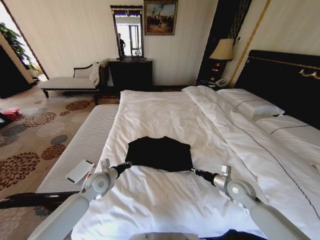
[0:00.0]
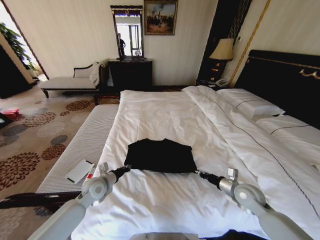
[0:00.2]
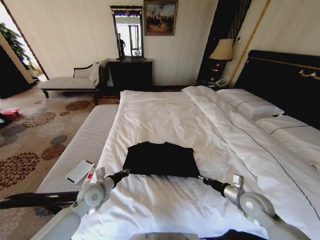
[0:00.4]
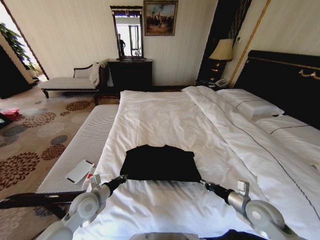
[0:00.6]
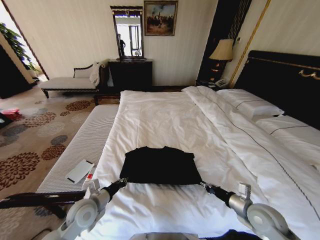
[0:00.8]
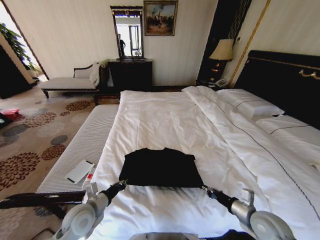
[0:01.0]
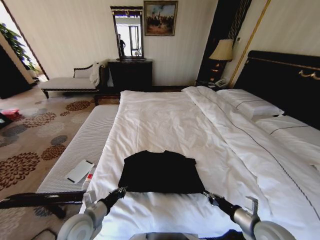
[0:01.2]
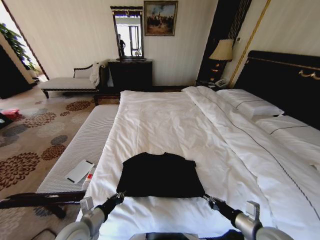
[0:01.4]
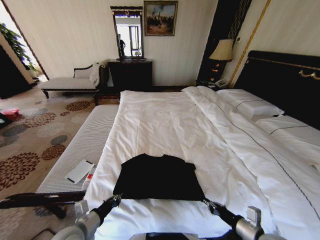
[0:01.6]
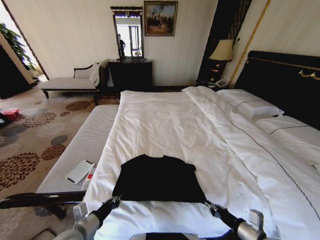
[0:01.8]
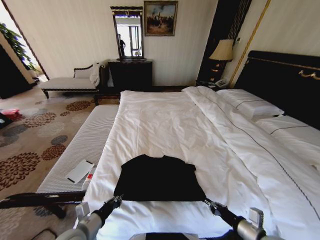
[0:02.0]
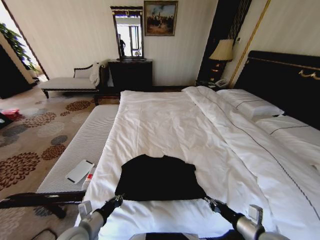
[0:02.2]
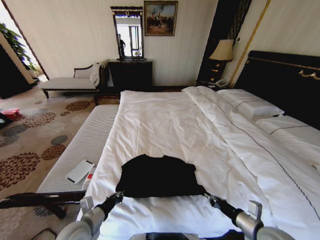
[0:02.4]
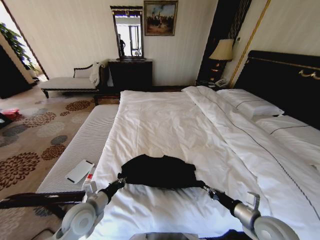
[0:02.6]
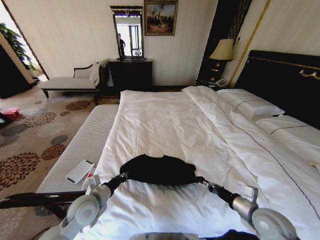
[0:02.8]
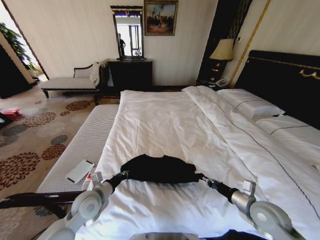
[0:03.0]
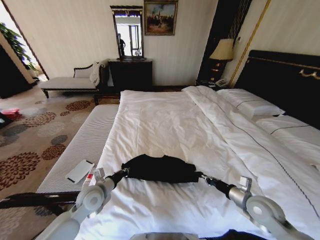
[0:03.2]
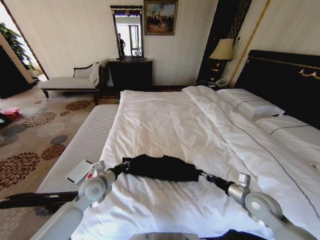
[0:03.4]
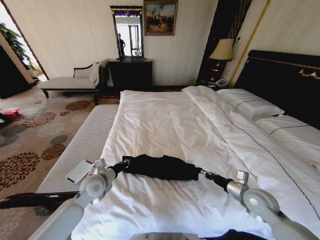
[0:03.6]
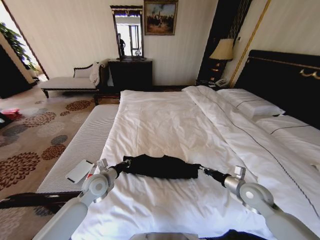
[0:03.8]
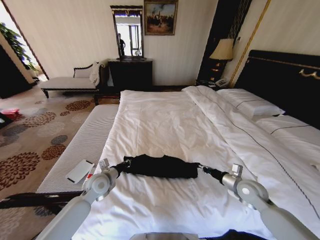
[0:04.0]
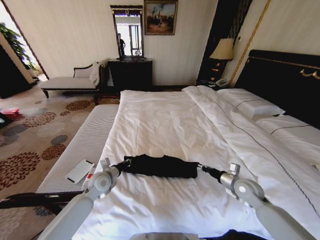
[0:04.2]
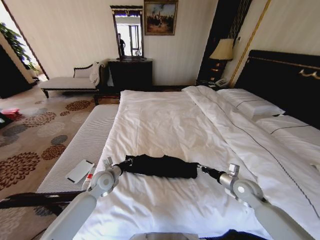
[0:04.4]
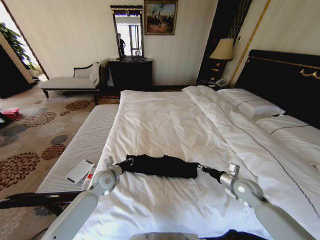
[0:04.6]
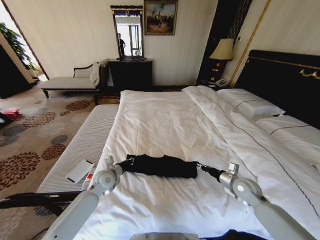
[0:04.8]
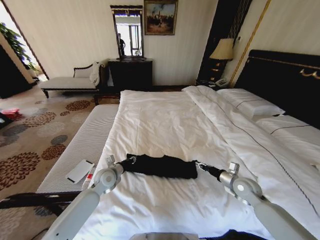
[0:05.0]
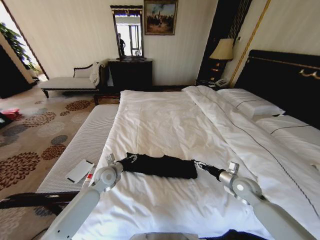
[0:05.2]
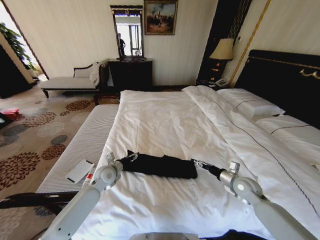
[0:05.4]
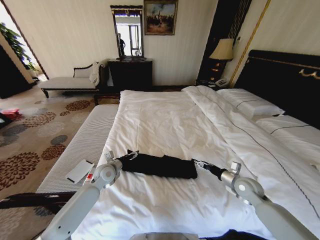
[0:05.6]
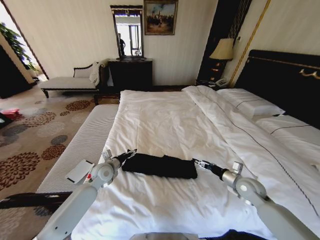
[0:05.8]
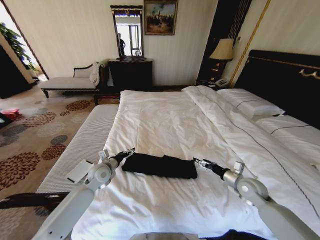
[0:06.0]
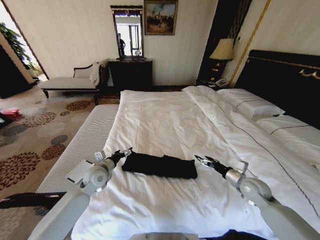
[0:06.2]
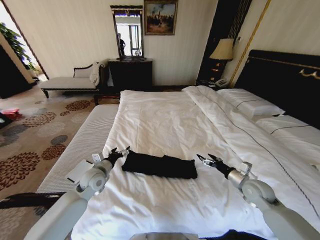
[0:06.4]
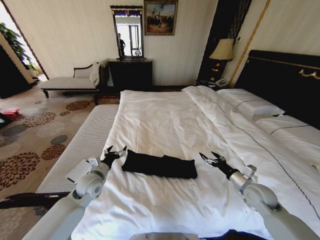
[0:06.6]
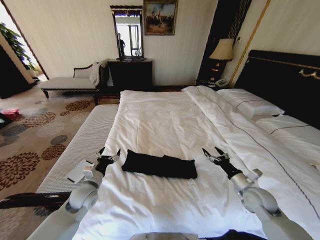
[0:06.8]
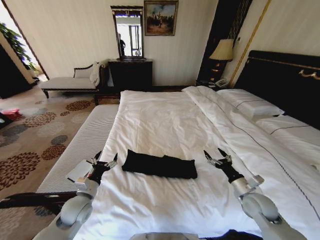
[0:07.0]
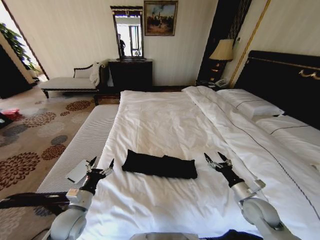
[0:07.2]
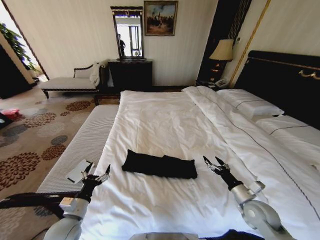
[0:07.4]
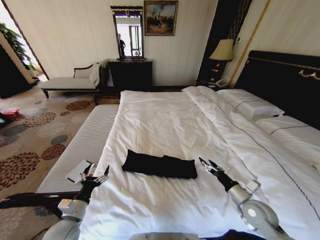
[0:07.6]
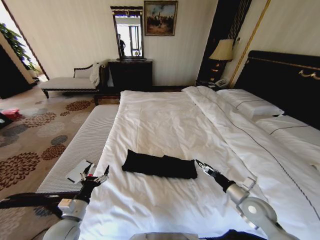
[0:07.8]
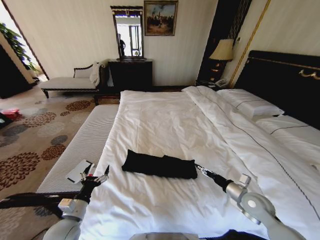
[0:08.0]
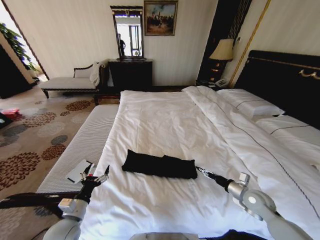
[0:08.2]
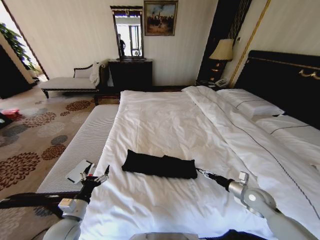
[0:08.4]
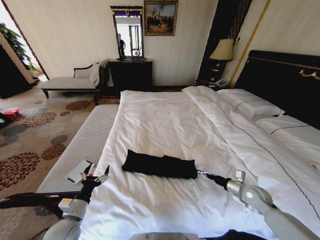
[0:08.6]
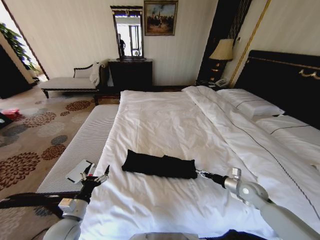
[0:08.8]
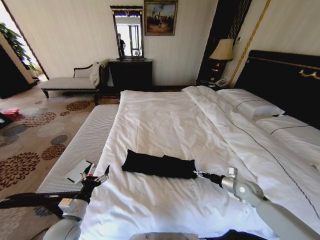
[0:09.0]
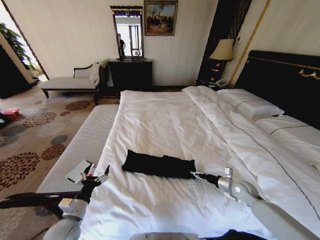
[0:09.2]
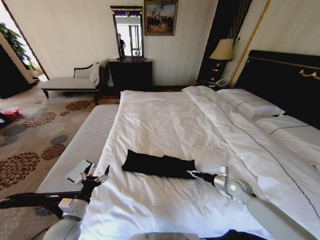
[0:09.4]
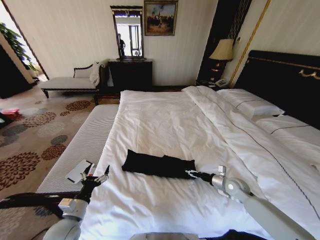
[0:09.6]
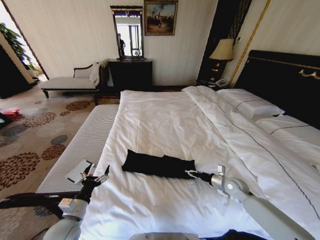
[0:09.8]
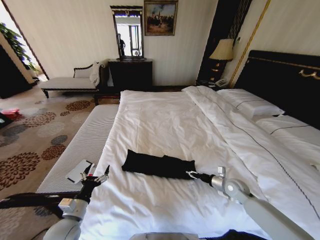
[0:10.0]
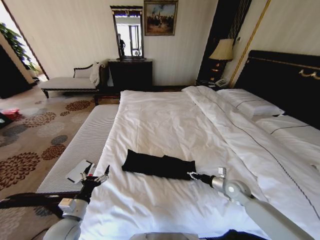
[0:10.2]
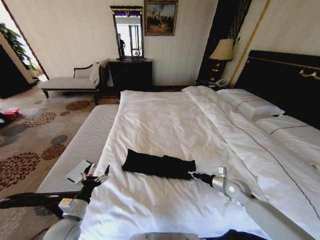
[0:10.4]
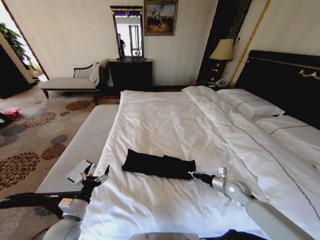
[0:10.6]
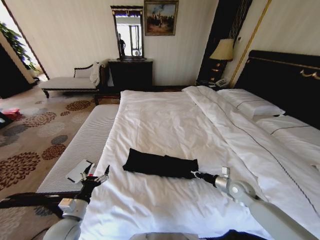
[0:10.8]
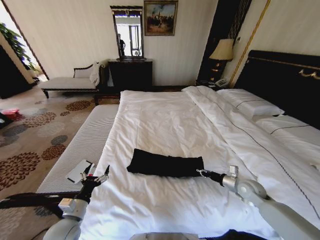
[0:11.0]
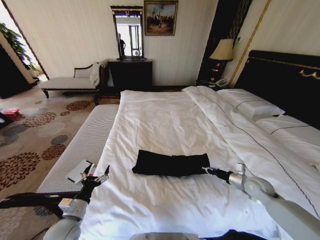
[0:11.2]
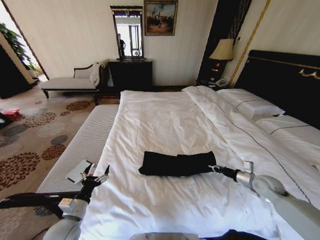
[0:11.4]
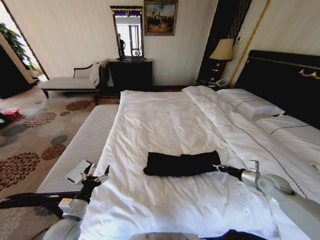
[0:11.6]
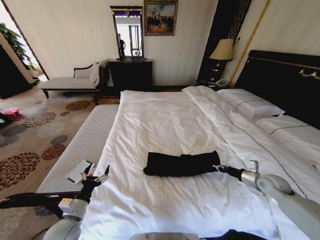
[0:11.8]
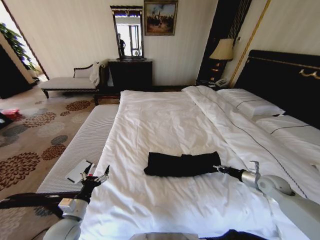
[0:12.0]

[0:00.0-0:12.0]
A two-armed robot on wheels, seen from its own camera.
Task of the whole recording: Fold the clothes on the bed.
0:00.0 to 0:01.6: Both grippers move backward, about 20 cm.
0:01.6 to 0:03.0: The two grippers go approximately 10 cm forward.
0:03.0 to 0:04.4: The two grippers go roughly 10 cm forward.
0:04.4 to 0:06.0: The right gripper opens its fingers, while the left gripper opens its fingers.
0:06.0 to 0:07.6: The right gripper moves backward, about 10 cm. The left gripper shifts some 20 cm backward.
0:07.6 to 0:09.0: The right gripper goes some 10 cm forward.
0:09.0 to 0:10.4: The right gripper closes its fingers.
0:10.4 to 0:12.0: The right gripper is displaced to the right and upward by about 15 cm.

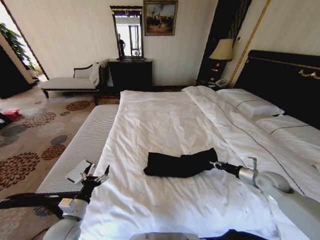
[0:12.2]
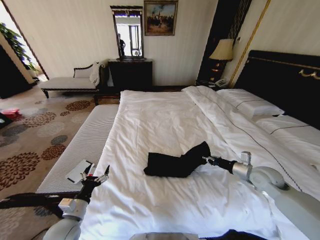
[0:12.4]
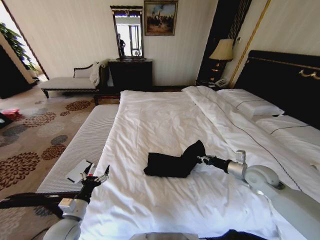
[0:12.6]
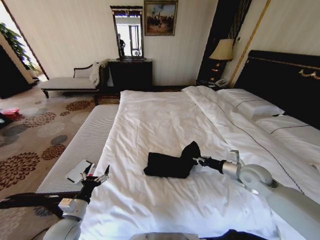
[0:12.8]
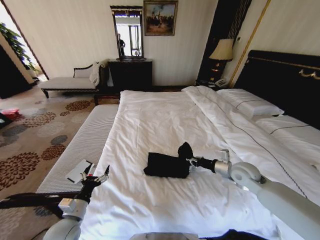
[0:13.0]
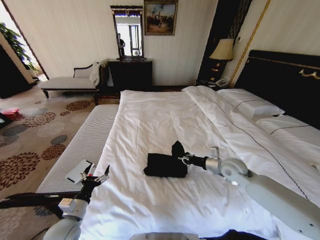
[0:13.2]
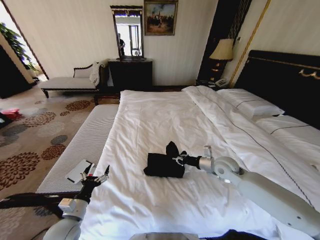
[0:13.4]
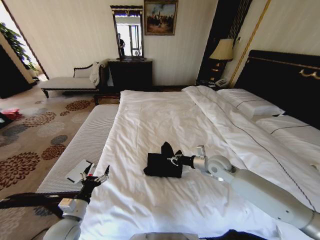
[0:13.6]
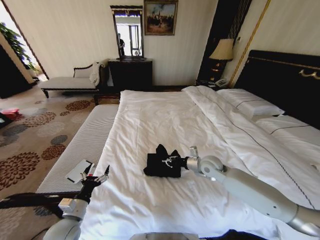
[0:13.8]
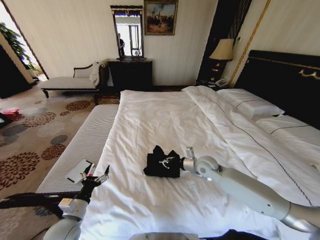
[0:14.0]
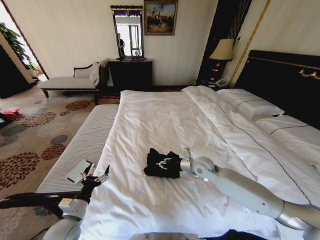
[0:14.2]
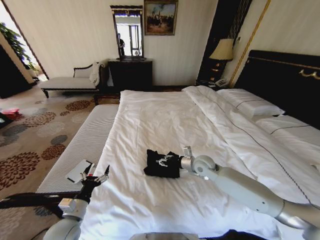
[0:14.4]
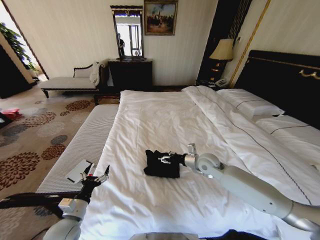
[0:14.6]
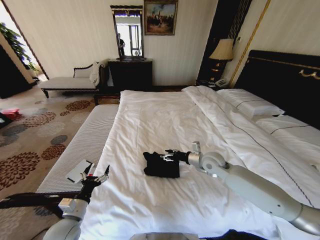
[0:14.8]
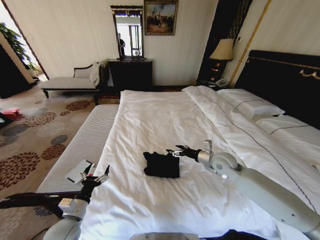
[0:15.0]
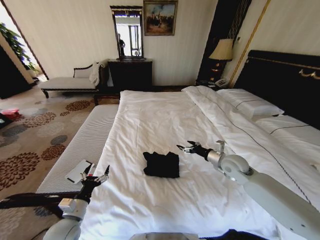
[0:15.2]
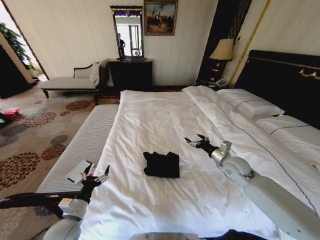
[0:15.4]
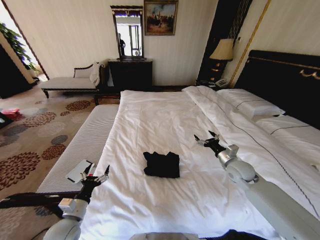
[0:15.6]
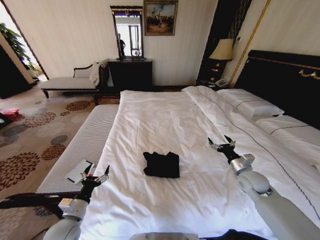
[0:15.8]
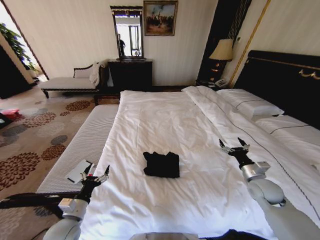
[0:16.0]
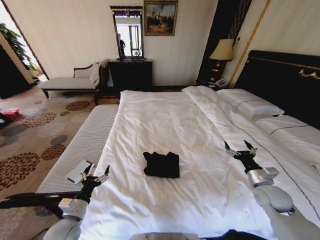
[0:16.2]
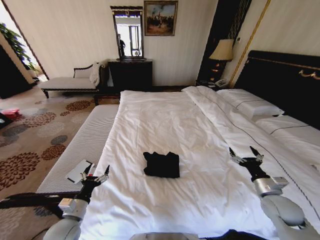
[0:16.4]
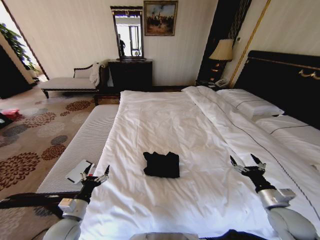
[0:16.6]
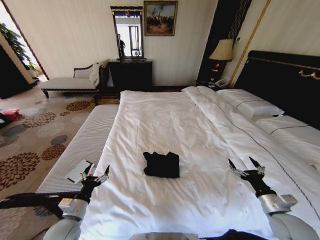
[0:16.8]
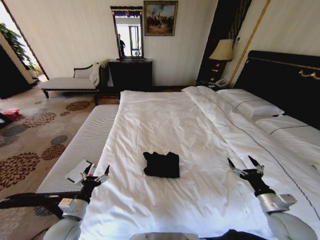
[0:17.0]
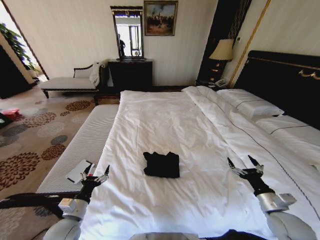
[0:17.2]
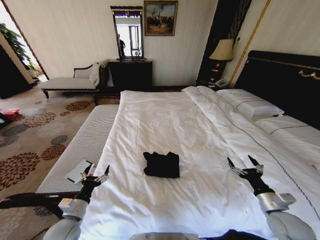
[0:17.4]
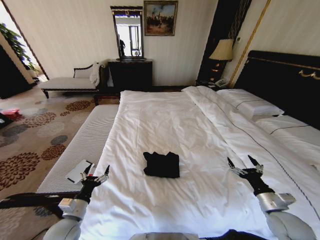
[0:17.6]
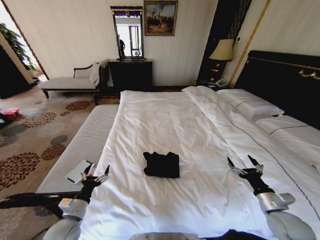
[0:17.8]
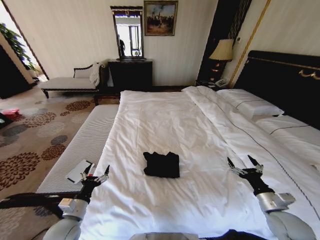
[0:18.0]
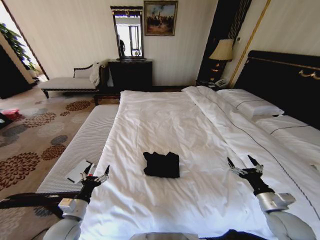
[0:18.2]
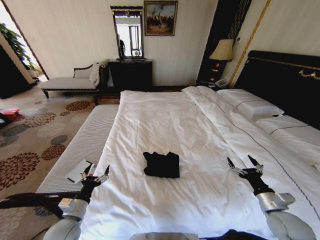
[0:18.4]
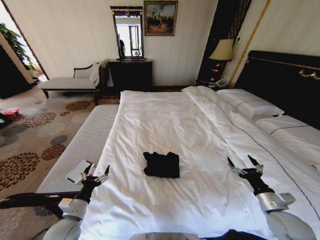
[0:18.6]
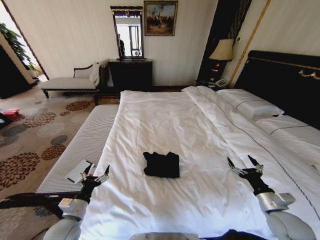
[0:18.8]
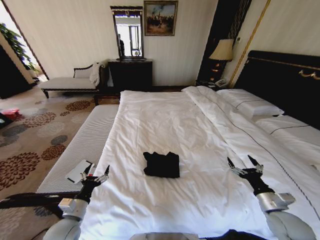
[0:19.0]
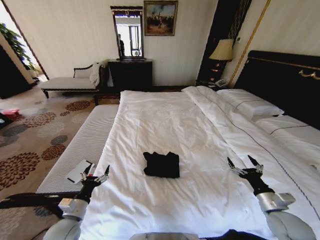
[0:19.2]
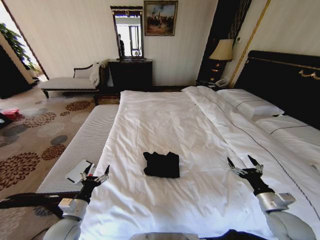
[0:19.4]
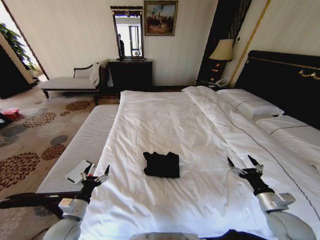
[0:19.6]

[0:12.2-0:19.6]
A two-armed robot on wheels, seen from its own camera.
Task of the whole recording: Fold the clothes on the bed.
0:12.2 to 0:13.6: The right gripper shifts roughly 20 cm to the left.
0:13.6 to 0:15.2: The right gripper heads to the right, covering approximately 5 cm, and opens.
0:15.2 to 0:16.6: The right gripper heads backward and to the right, covering some 20 cm.
0:16.6 to 0:18.2: The grippers make only small movements.
0:18.2 to 0:19.6: Both grippers stay about where they are.

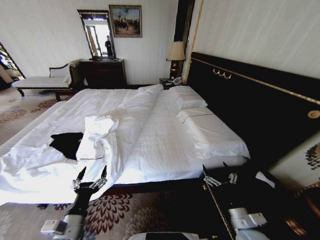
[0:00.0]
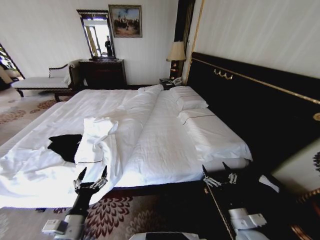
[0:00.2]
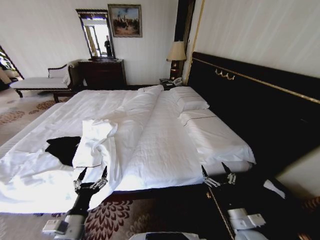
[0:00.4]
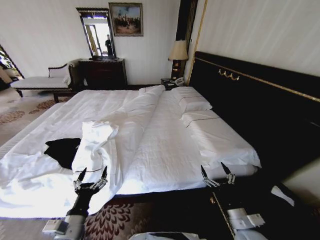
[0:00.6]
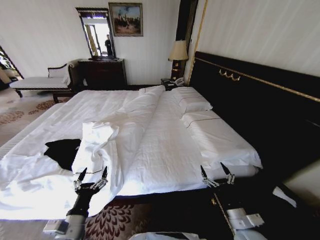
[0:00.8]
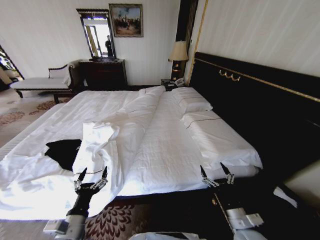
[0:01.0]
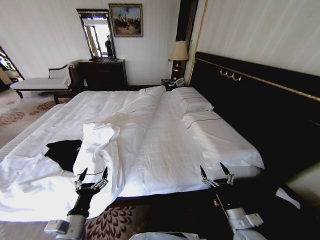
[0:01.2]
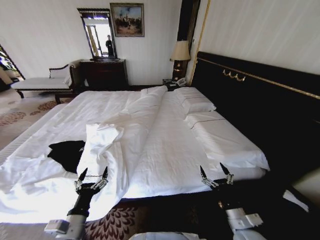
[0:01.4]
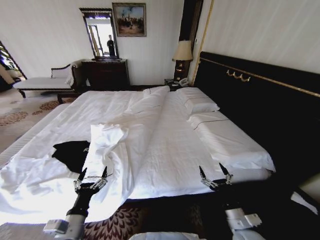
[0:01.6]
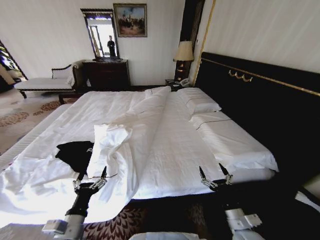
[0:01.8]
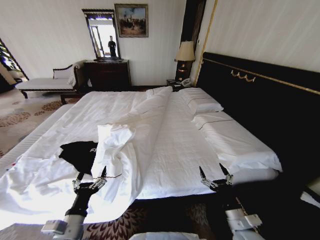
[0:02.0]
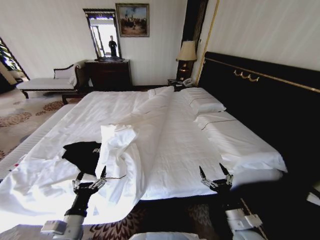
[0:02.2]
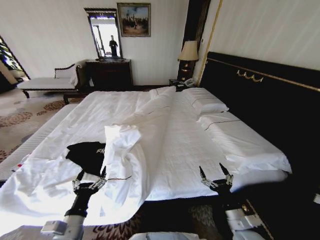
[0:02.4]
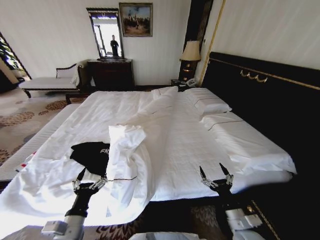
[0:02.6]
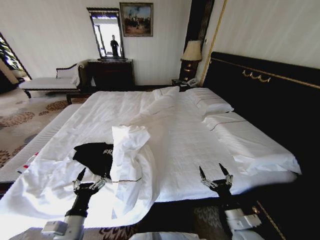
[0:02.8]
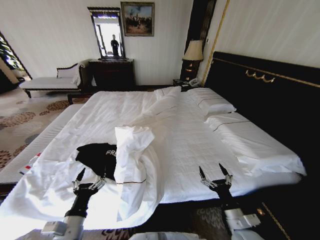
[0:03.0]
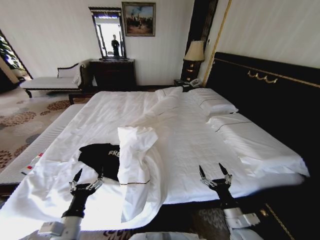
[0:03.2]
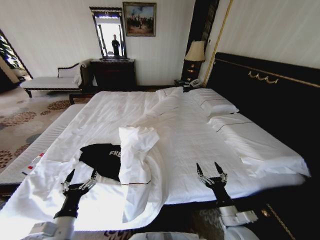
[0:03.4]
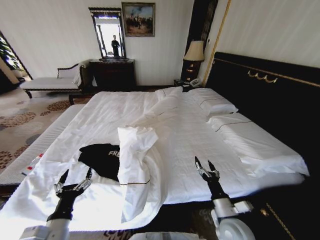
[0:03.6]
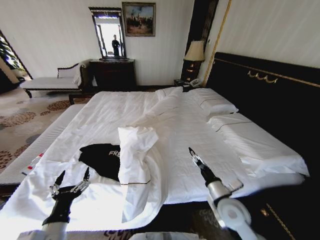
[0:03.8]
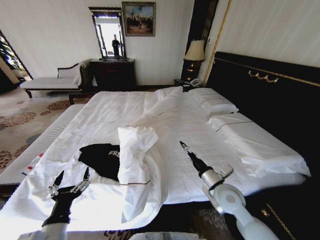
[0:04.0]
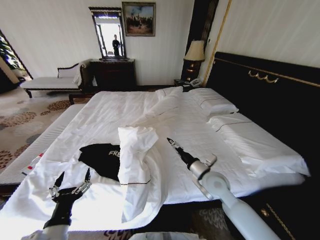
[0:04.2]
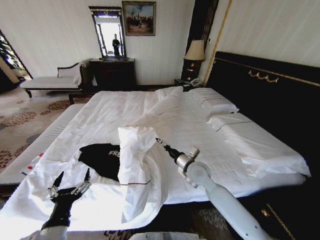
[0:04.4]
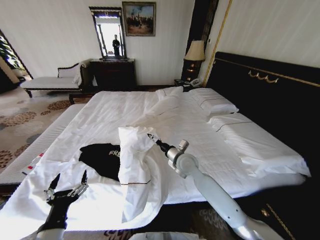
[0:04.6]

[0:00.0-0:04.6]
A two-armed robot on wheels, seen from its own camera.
Task of the whole recording: Fold the clothes on the bed.
0:03.0 to 0:04.6: The right gripper moves forward, to the left and upward, about 30 cm. Meanwhile the left gripper moves roughly 5 cm.
